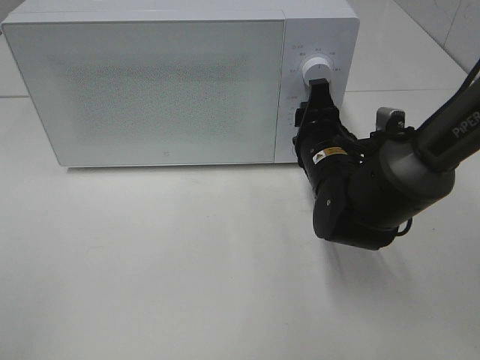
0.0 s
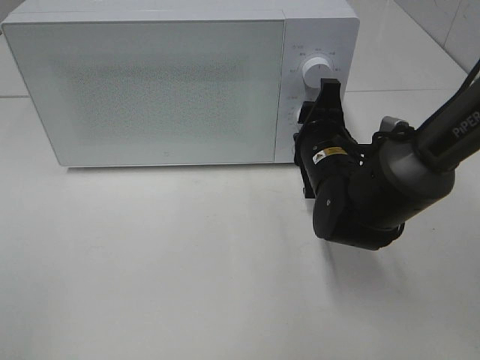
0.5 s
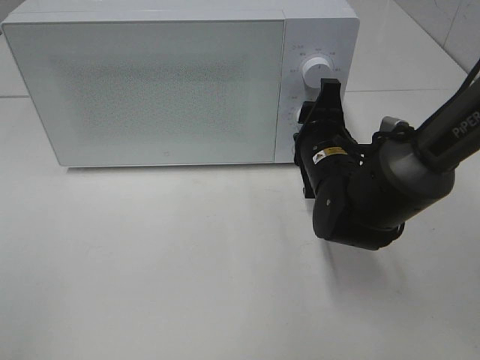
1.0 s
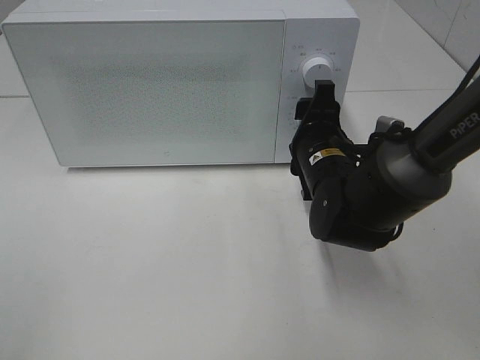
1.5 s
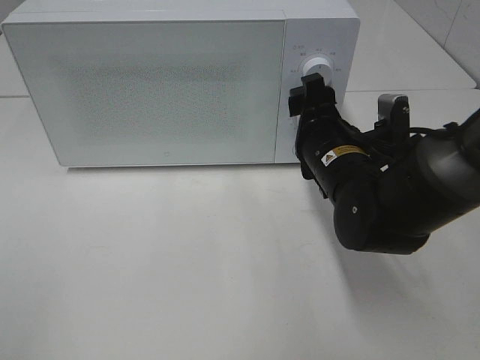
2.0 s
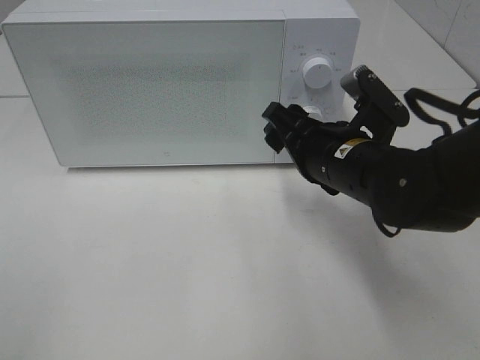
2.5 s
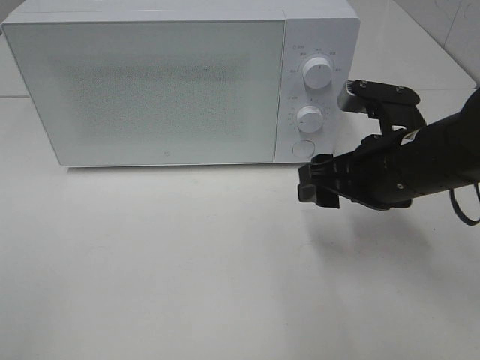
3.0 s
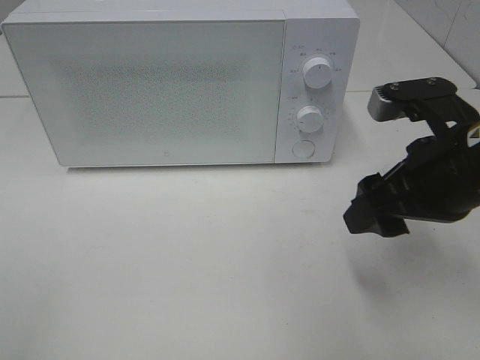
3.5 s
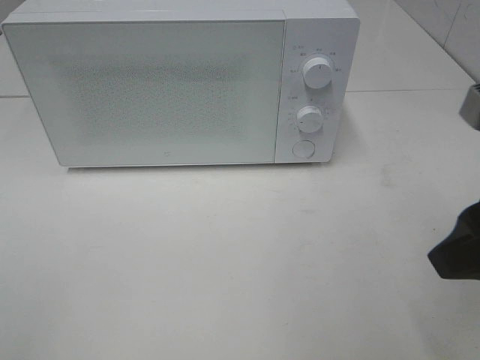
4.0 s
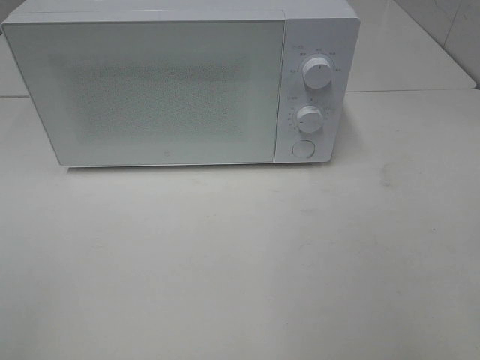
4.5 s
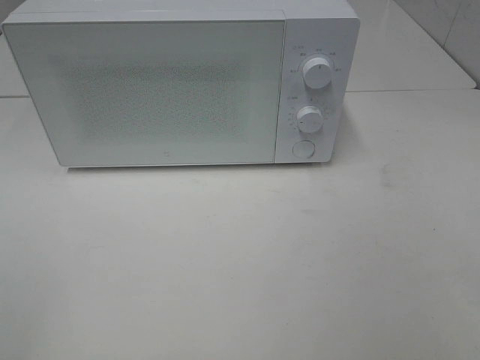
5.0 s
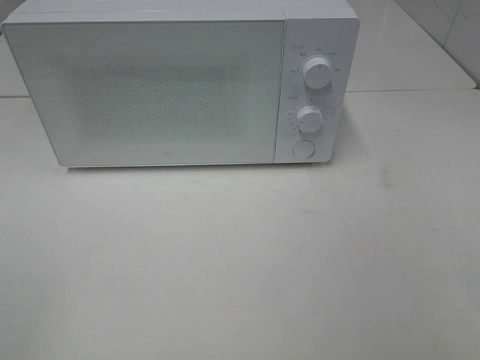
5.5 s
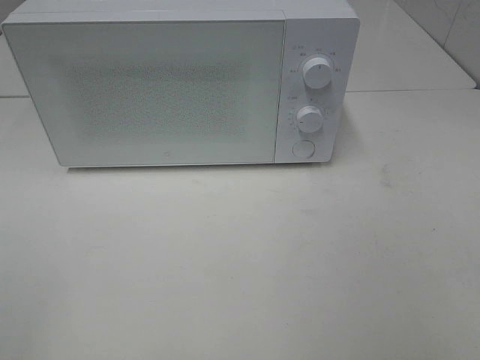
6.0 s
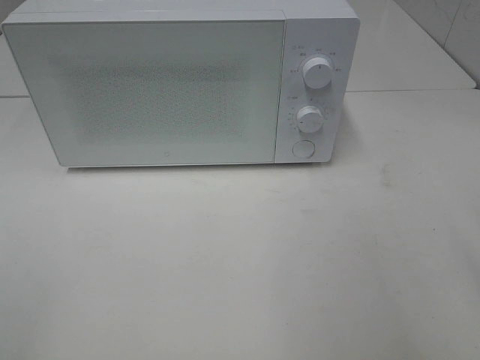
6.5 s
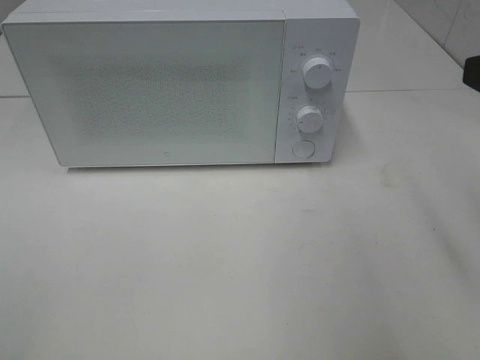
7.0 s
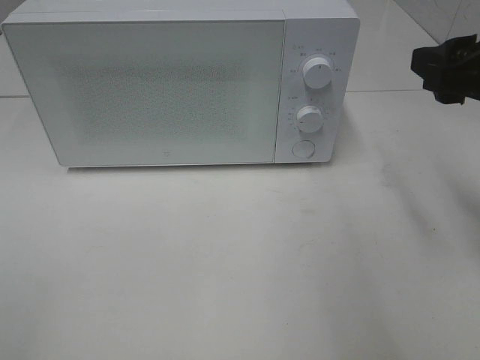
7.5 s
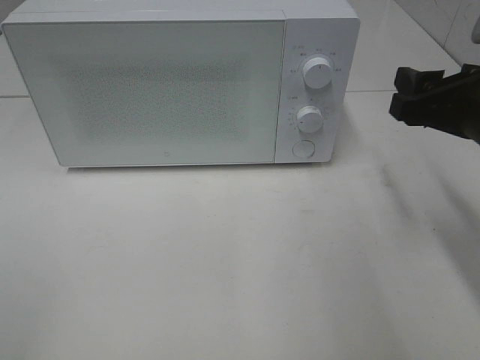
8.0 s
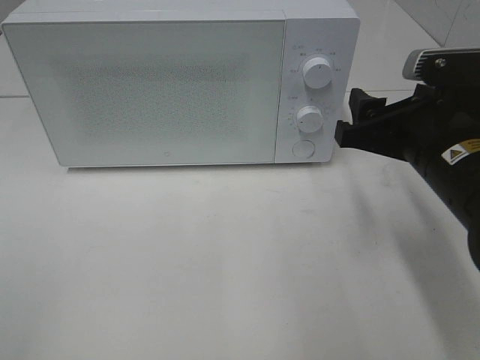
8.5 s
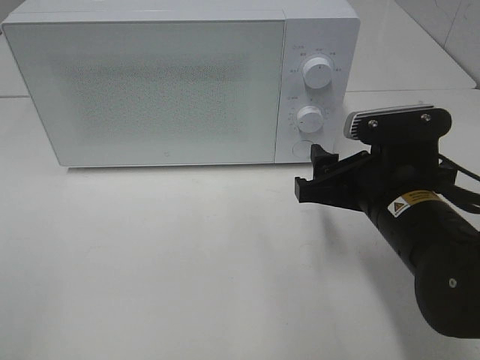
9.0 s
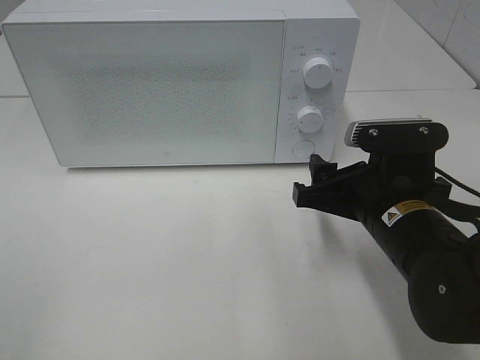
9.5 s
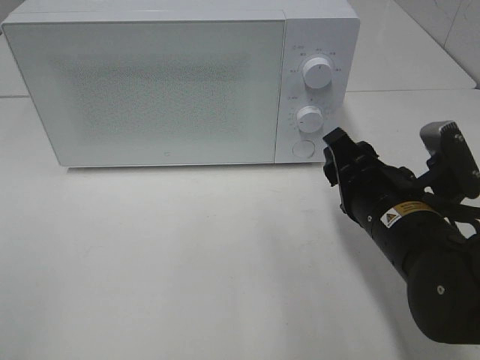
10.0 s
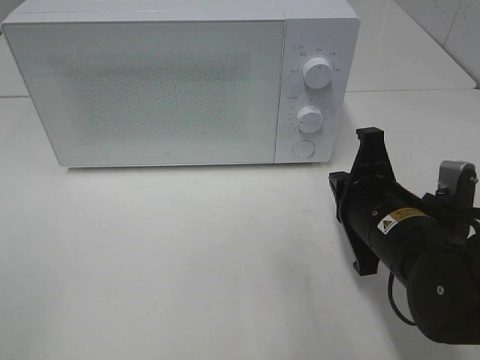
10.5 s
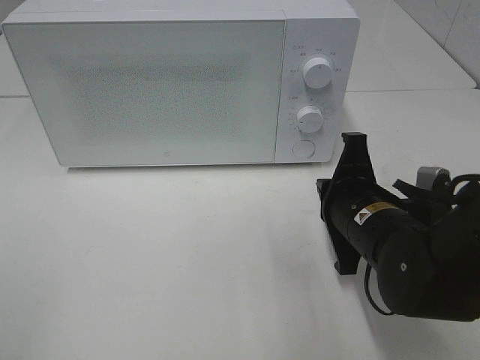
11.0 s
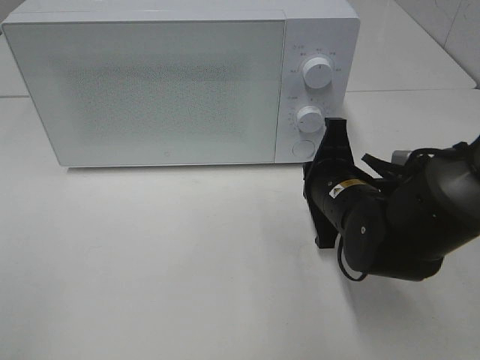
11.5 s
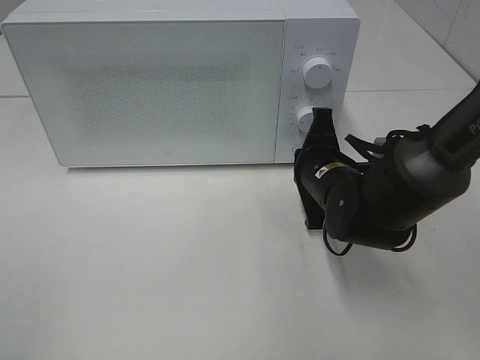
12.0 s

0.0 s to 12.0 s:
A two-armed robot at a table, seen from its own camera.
Task of the whole recording: Heat the burger.
0.0 to 2.0 s: The right gripper opens.
2.0 to 4.0 s: The right gripper moves backward, upward and to the right, about 25 cm.
4.0 to 6.0 s: The right gripper heads backward and to the right, covering about 15 cm.
6.0 to 8.0 s: The right gripper travels forward by some 20 cm.
8.0 to 10.0 s: The right gripper travels downward and to the left by about 10 cm.
10.0 to 12.0 s: The right gripper goes roughly 10 cm forward, and closes up.

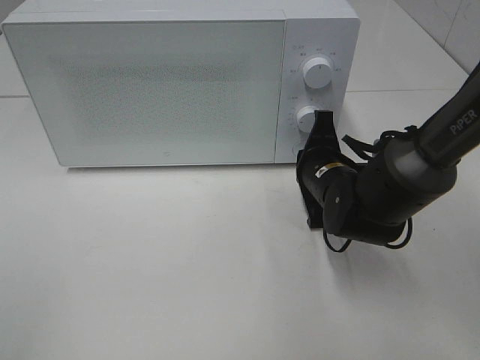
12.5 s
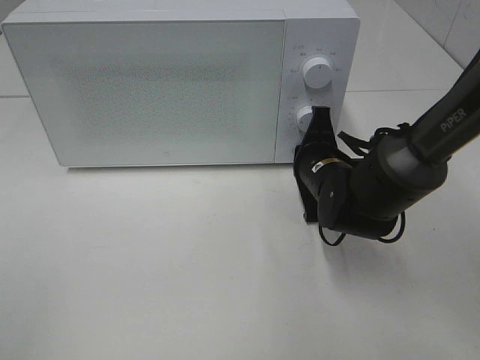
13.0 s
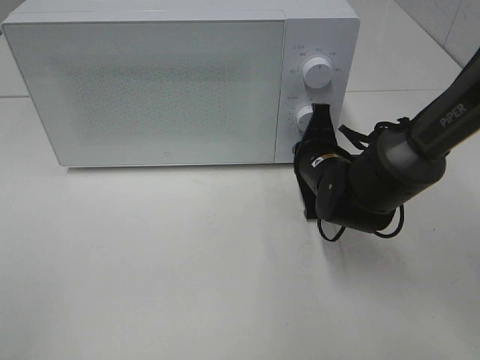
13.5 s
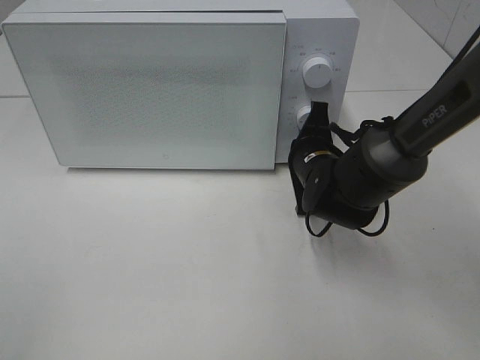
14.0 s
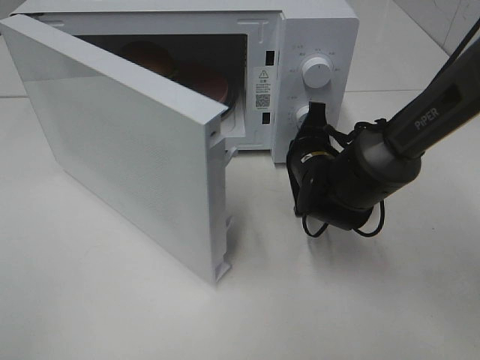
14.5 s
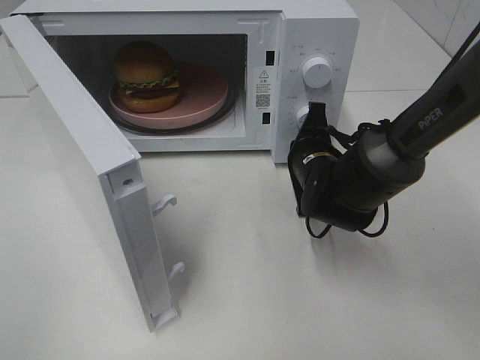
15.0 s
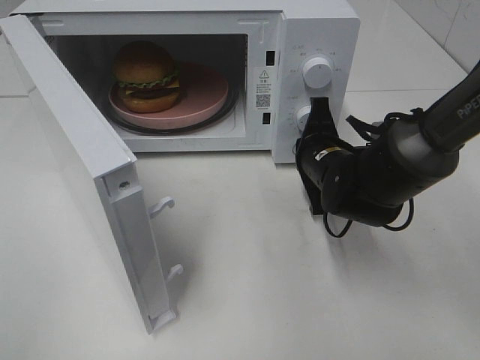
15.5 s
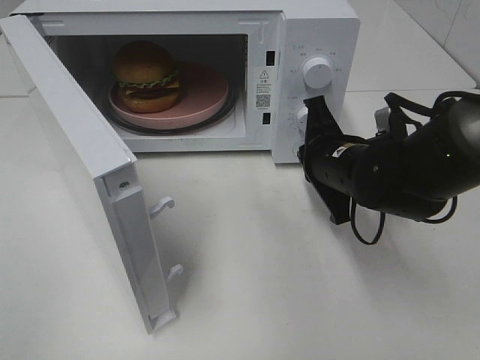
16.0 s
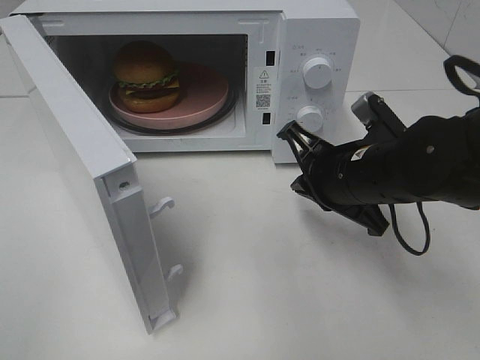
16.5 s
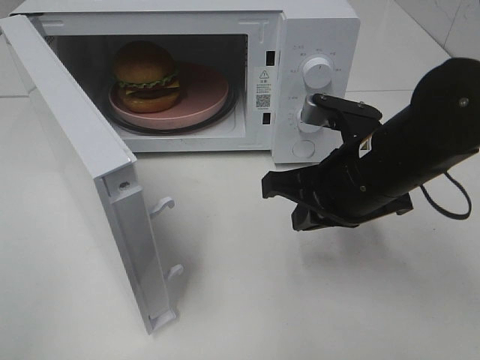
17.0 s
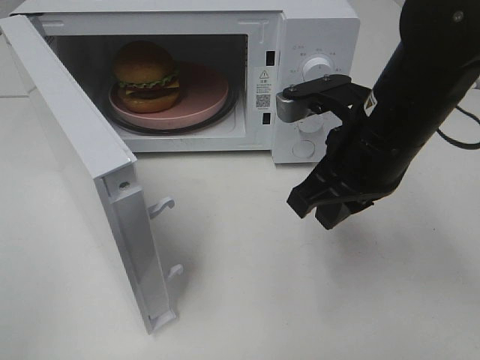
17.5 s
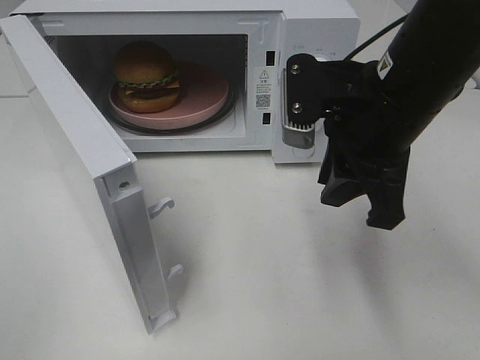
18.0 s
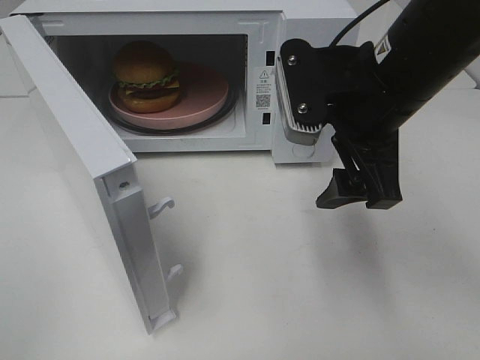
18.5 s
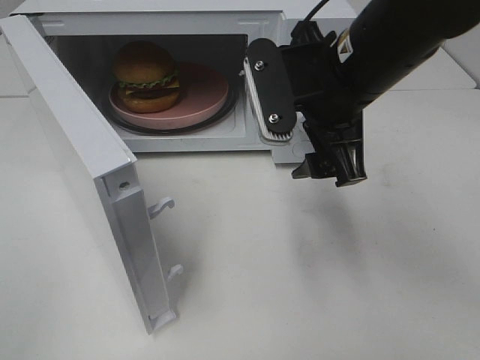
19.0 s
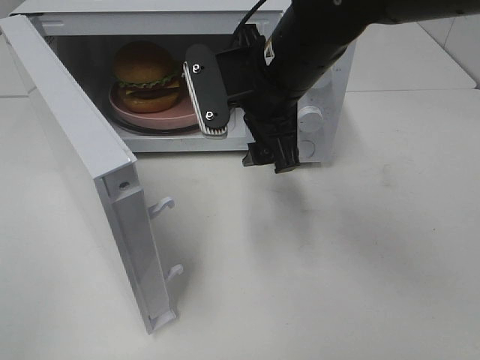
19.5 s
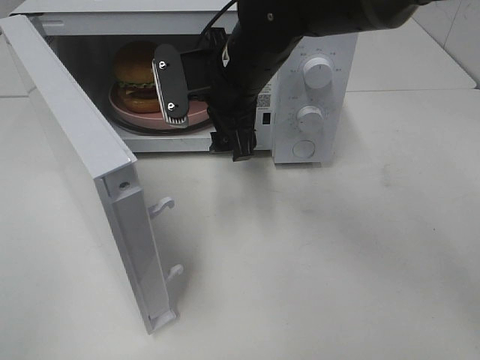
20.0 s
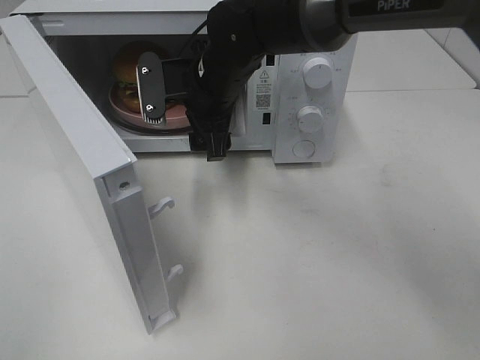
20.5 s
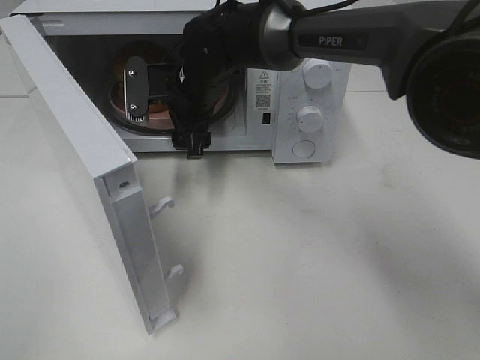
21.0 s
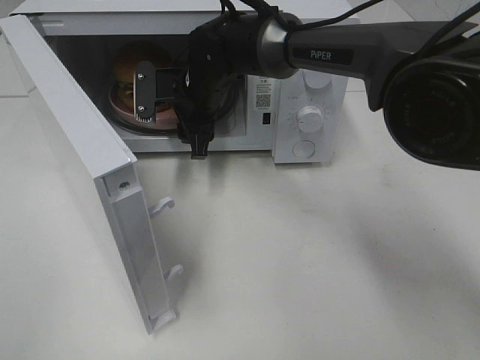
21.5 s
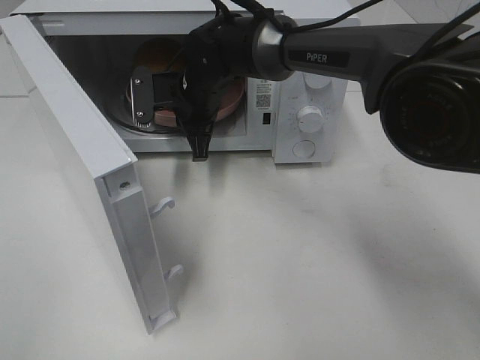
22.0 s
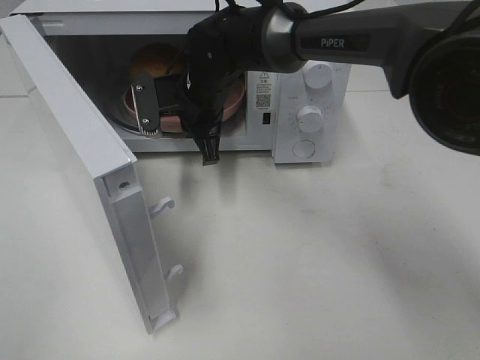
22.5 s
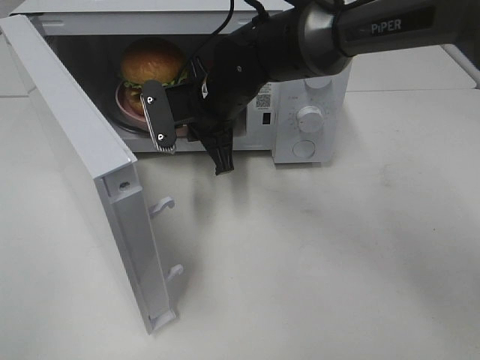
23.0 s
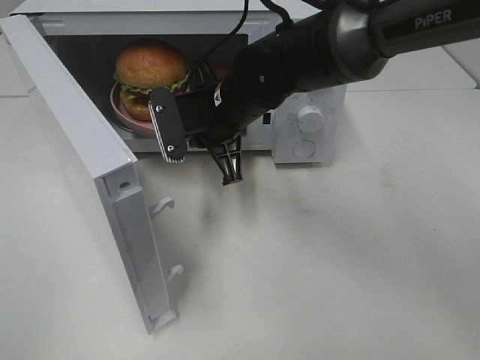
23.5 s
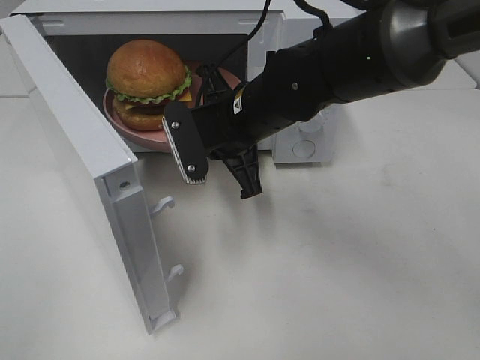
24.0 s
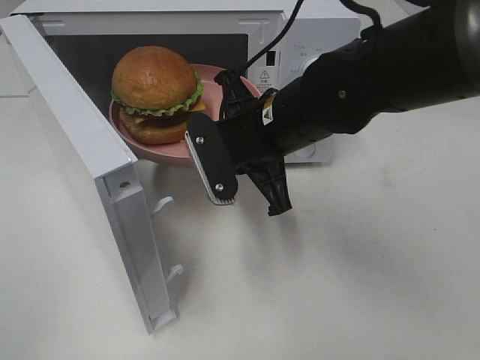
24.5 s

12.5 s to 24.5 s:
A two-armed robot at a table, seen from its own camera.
Task of the whole recording: Heat the burger.
Step, 12.5 to 16.0 s: Right hand: press the switch.
Step, 16.5 to 22.5 s: Right hand: grab the plate with the hamburger.
14.5 to 16.5 s: The right gripper is displaced backward and upward by some 10 cm.
16.5 to 18.5 s: The right gripper is displaced upward by roughly 10 cm, and opens.
18.5 to 20.5 s: The right gripper shifts about 20 cm to the left, forward and downward.
20.5 to 22.5 s: The right gripper closes up.
22.5 to 24.5 s: The right gripper moves backward and to the right, approximately 15 cm.

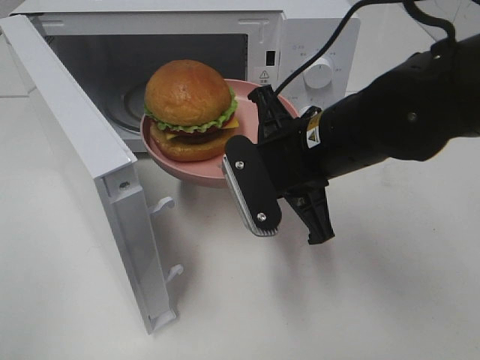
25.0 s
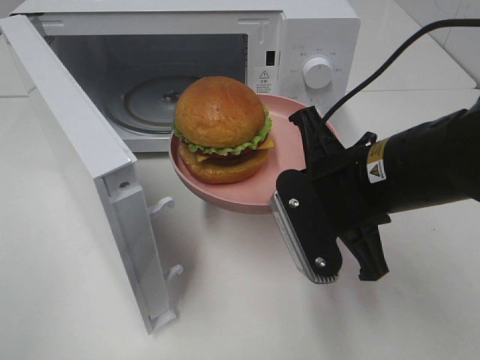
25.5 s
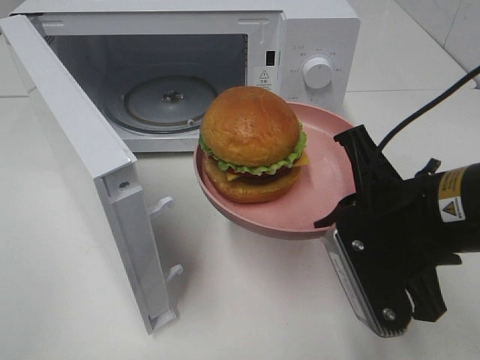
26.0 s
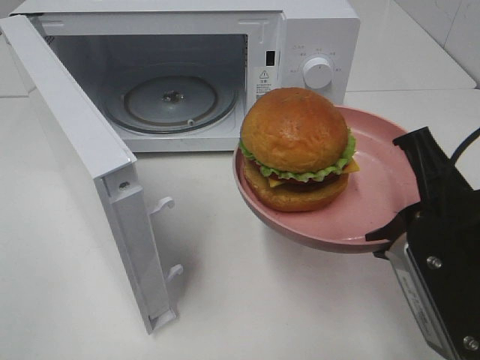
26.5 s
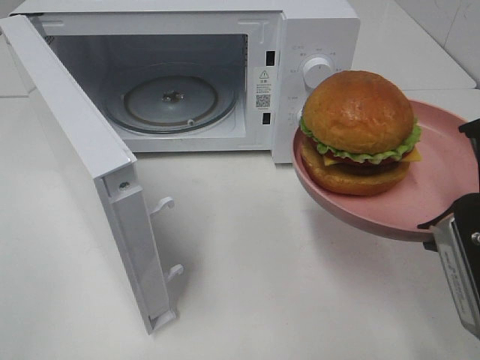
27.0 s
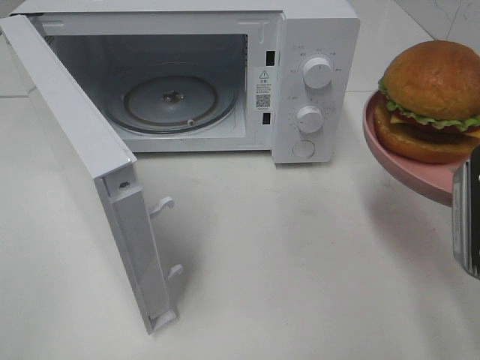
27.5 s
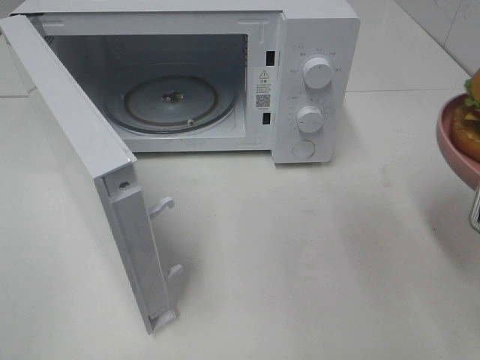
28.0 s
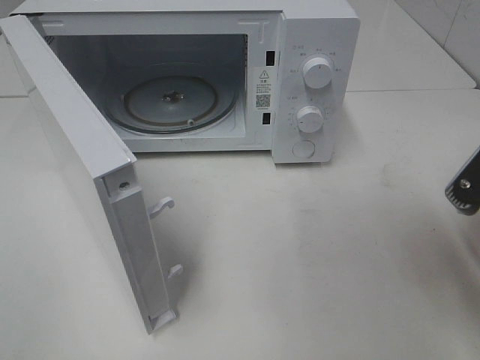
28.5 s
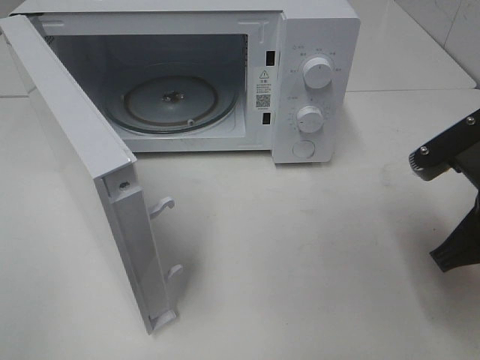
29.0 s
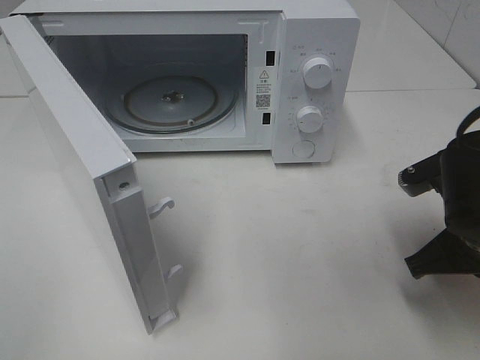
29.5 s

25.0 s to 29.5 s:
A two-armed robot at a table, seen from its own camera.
Task of the whole recording: Heat the burger.
25.0 to 27.0 s: The right gripper is displaced backward and to the right by roughly 20 cm.
27.0 to 29.5 s: The right gripper is displaced downward and forward by approximately 15 cm.
